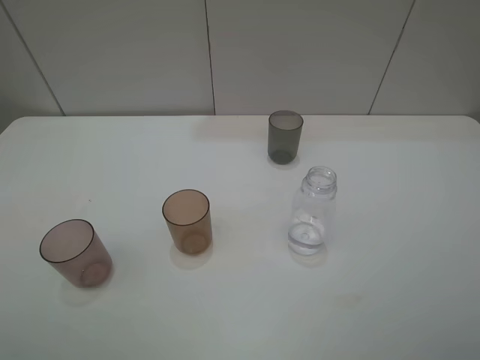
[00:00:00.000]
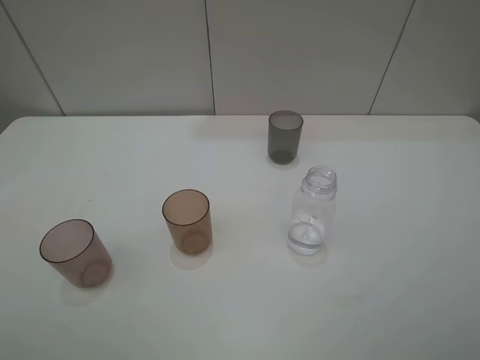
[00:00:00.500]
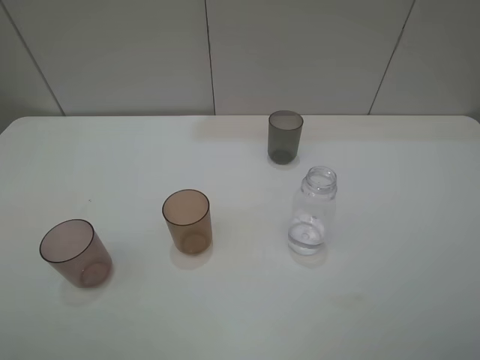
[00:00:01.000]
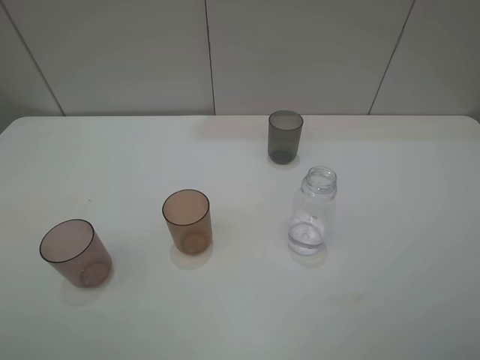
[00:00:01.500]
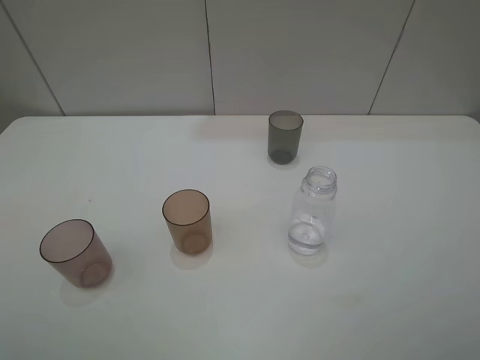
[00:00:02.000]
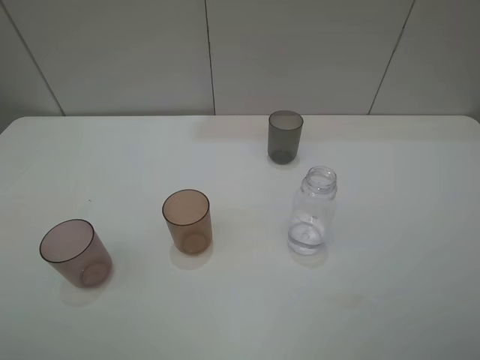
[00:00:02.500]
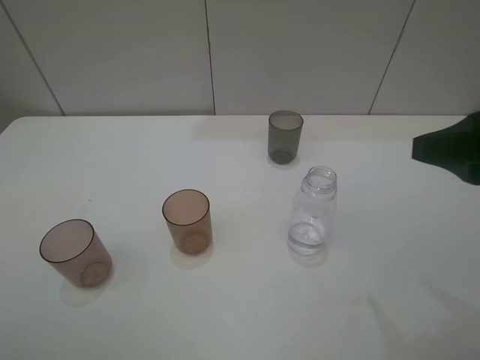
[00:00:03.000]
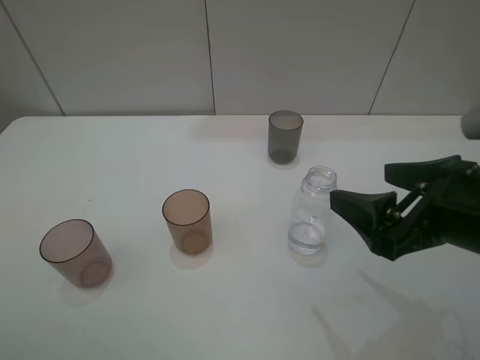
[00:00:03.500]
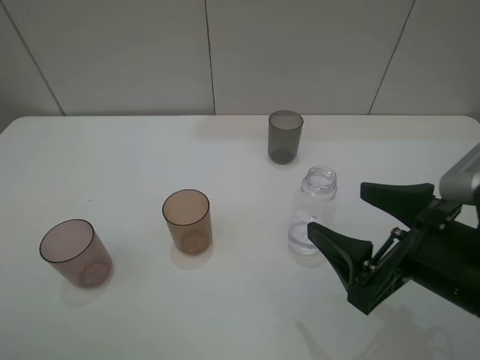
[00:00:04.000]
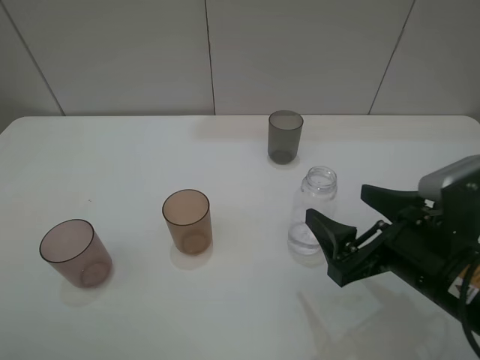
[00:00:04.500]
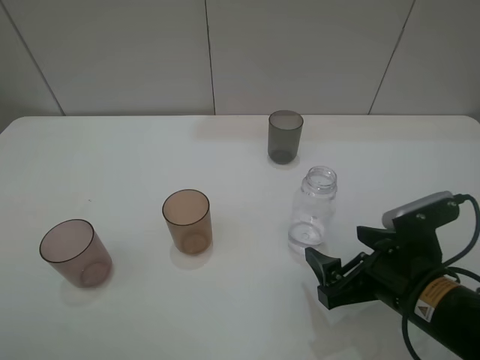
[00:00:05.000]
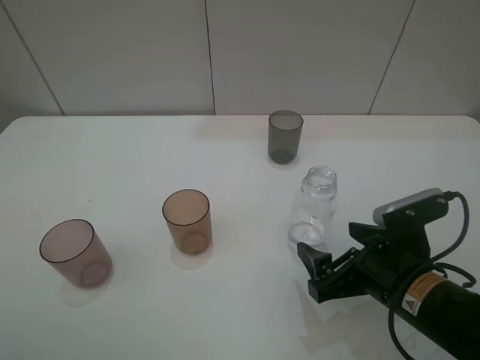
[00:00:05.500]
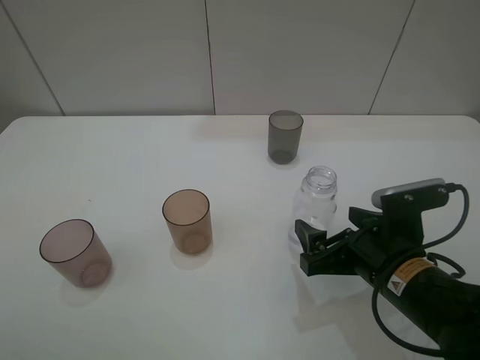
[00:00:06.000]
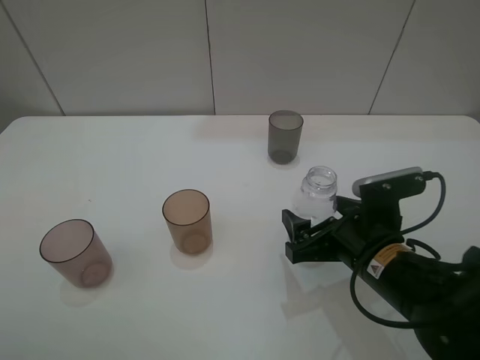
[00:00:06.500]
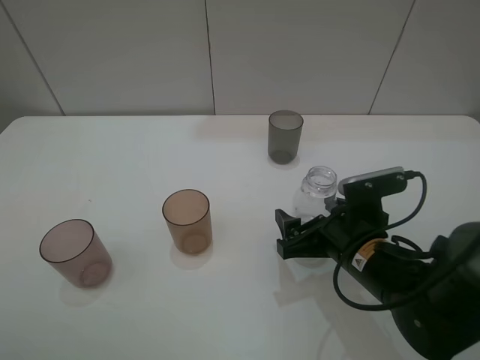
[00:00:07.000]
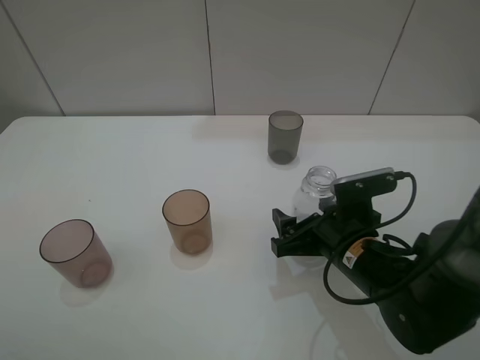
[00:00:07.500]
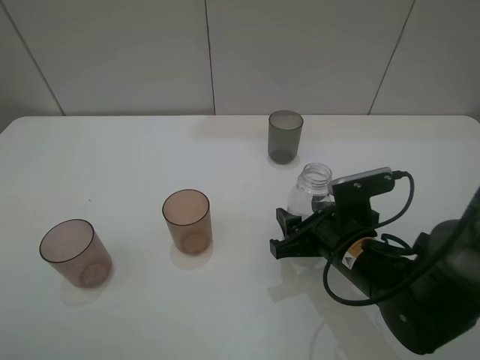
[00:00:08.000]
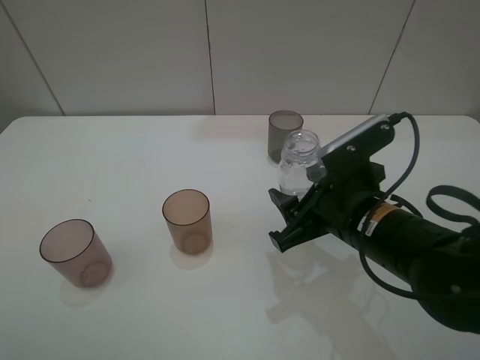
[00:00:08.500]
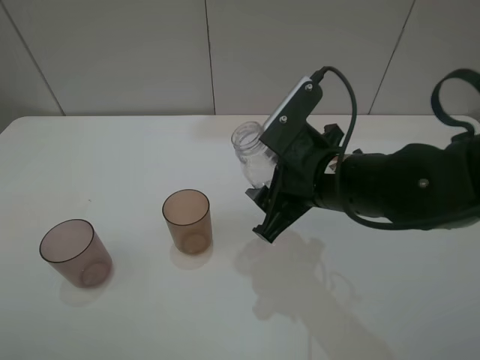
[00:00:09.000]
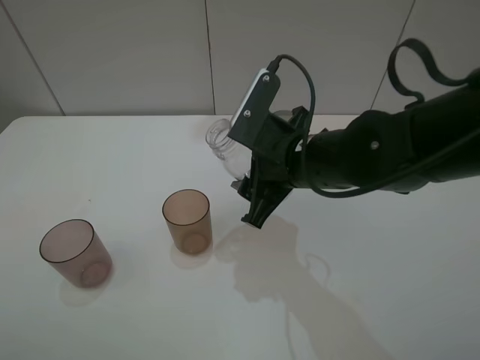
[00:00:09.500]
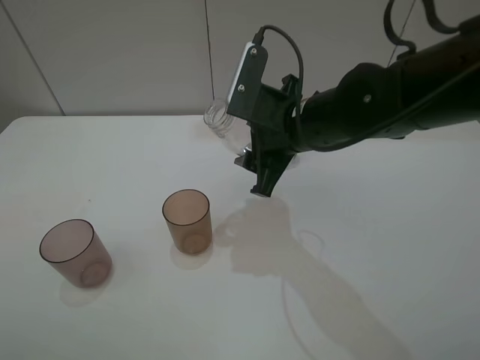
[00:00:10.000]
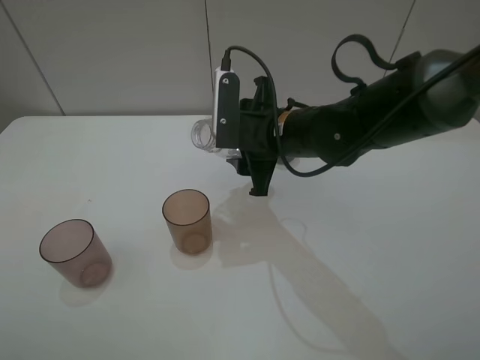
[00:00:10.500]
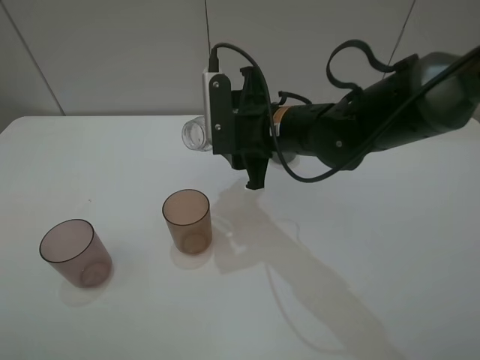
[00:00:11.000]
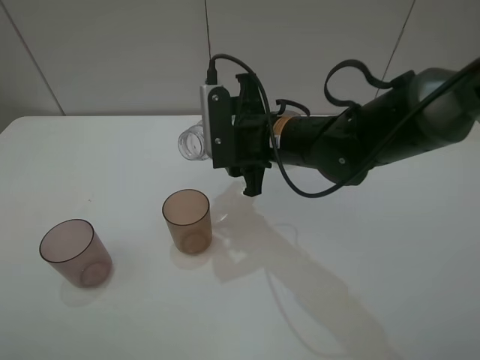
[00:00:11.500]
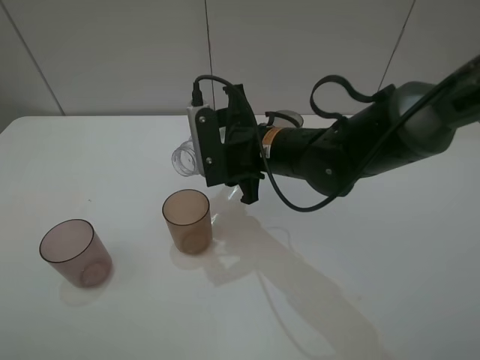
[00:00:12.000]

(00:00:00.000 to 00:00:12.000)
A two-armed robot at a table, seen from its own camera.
Task of the whole recording: pick up the bottle filled with water and pour water into the middle cup of the three cups.
Step, 00:00:00.000 - 00:00:07.500: Grasp the transparent bottle with the right gripper.
00:00:00.000 - 00:00:02.000: Neither gripper changes place.
00:00:02.000 - 00:00:04.000: The right gripper shifts approximately 20 cm downward, forward and to the left.
00:00:04.000 - 00:00:06.000: The right gripper moves downward, roughly 5 cm.
00:00:06.000 - 00:00:08.000: The right gripper shifts by about 5 cm, and closes.
00:00:08.000 - 00:00:10.000: The right gripper is displaced upward, forward and to the left by approximately 15 cm.
00:00:10.000 - 00:00:12.000: The right gripper ends up roughly 5 cm from where it was.

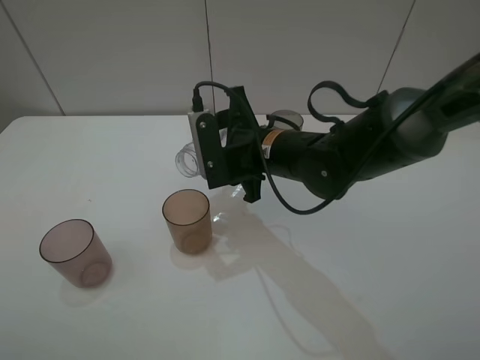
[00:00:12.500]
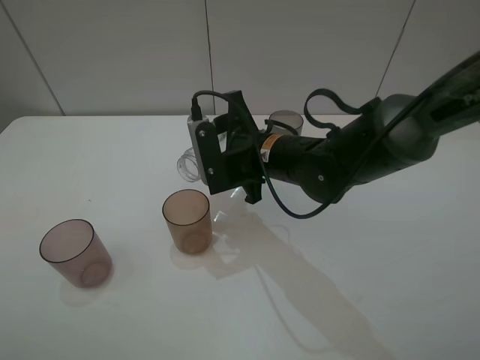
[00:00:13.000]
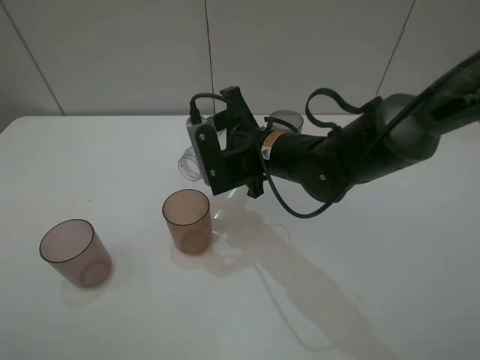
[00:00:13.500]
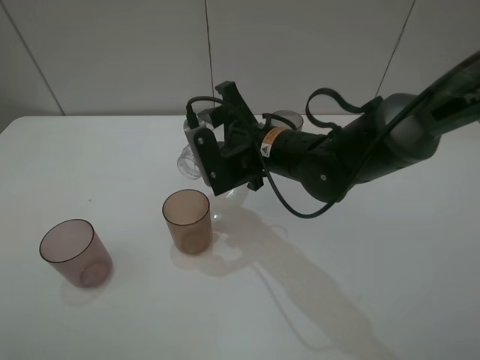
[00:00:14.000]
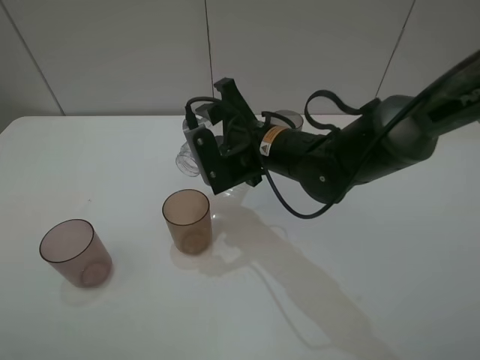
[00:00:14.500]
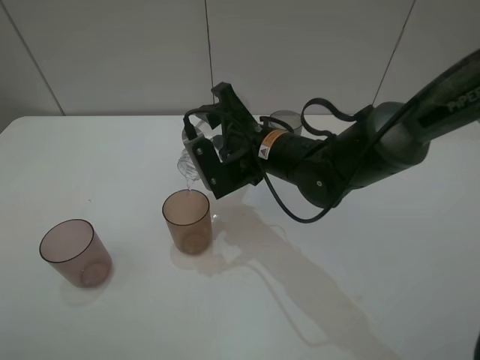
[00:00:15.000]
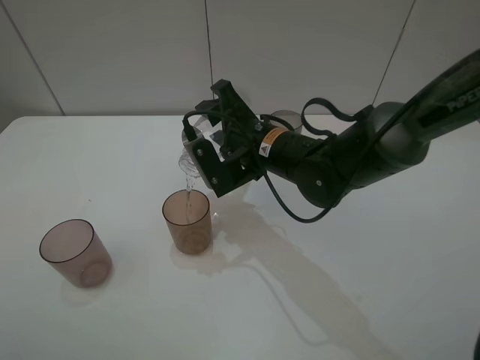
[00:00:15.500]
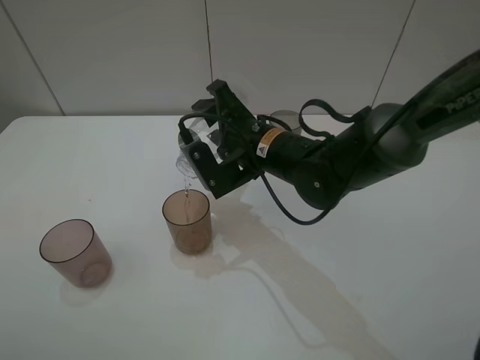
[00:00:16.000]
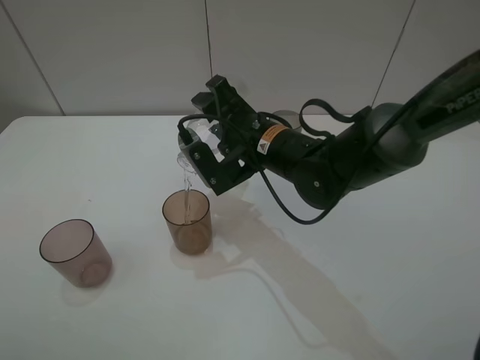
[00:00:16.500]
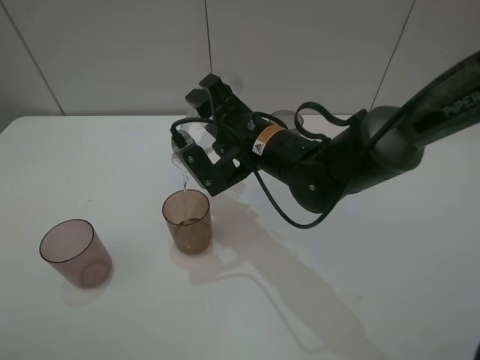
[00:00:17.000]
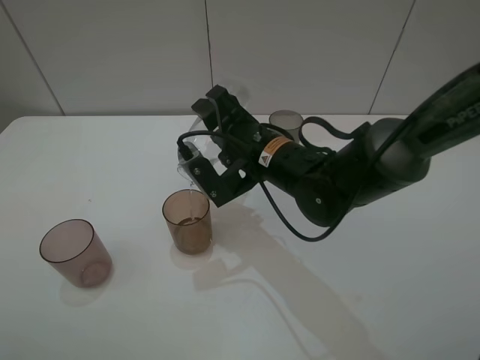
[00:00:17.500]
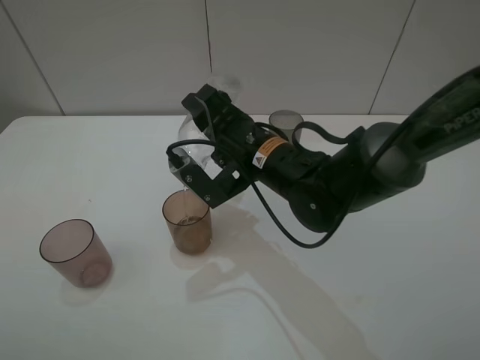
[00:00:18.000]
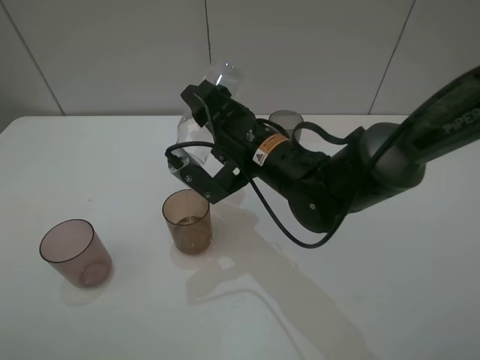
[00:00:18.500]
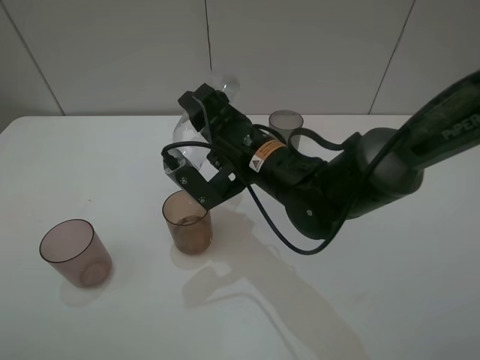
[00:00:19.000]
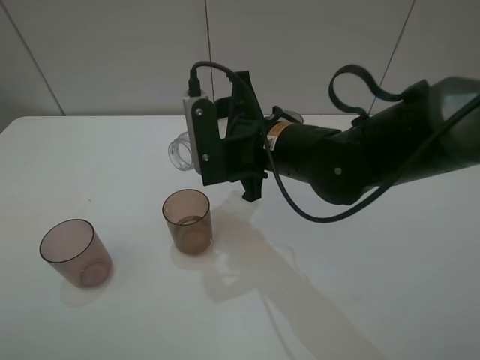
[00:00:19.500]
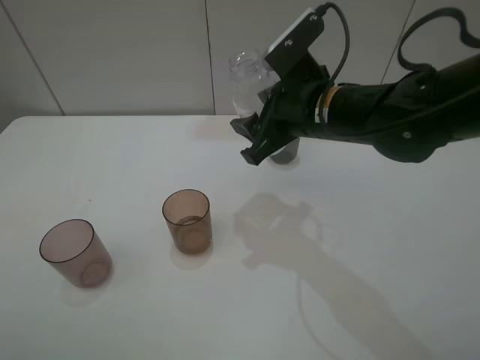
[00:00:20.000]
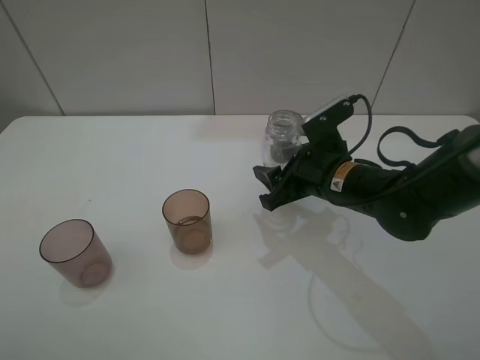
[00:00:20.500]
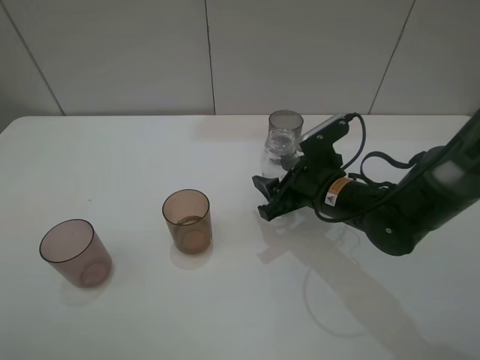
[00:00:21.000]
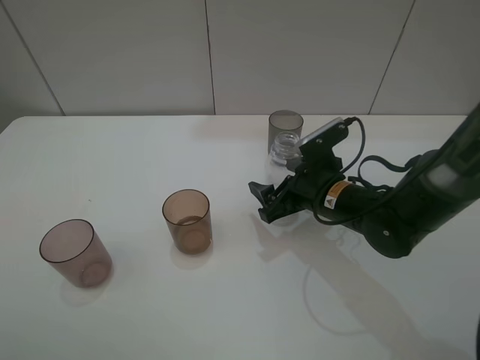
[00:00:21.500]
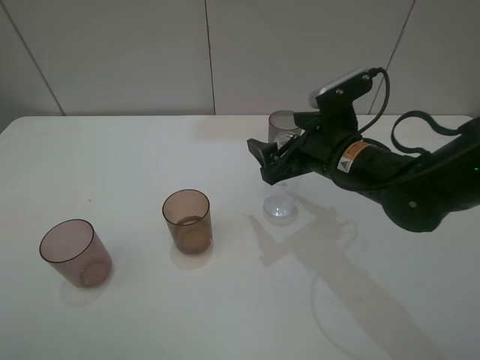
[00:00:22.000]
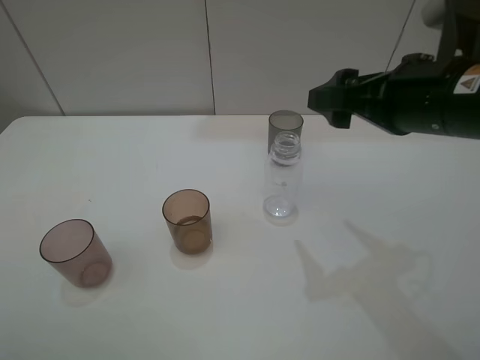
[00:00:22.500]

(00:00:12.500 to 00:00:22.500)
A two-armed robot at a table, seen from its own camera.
Task of the whole recording: pick up the bottle filled with water and pour water into the middle cup of the three cups.
00:00:12.500 - 00:00:14.500: The grippers move only a little.
00:00:14.500 - 00:00:16.500: The grippers move only a little.
00:00:16.500 - 00:00:18.500: The grippers move only a little.
00:00:18.500 - 00:00:20.500: The right gripper moves to the right, roughly 10 cm.
00:00:20.500 - 00:00:22.500: The right gripper heads upward, covering roughly 15 cm, and opens its fingers.

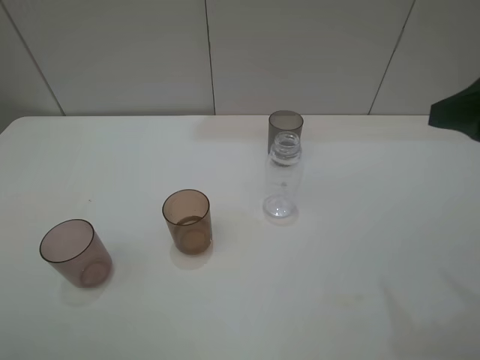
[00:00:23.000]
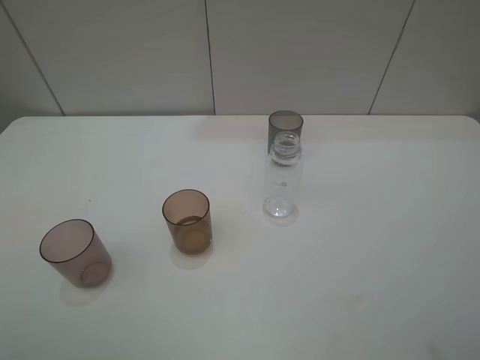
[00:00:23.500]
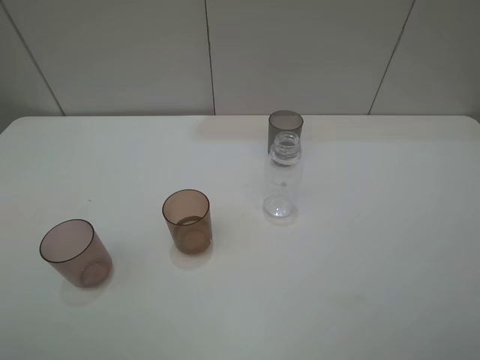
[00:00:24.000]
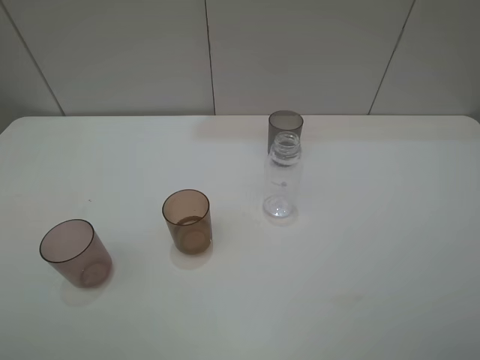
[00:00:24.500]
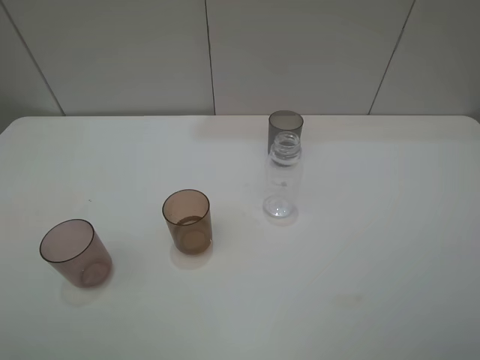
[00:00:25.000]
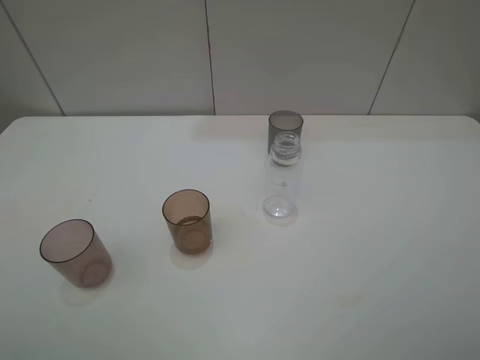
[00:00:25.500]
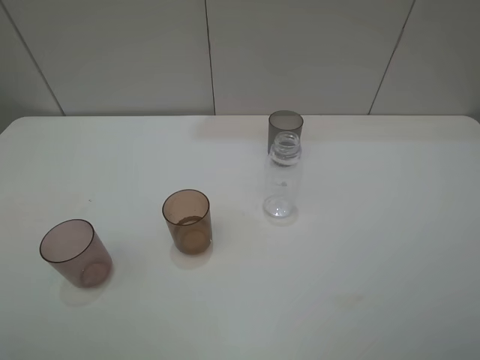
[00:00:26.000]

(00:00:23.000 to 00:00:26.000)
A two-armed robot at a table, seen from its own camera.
Task of the whole recording: pick up the bottle filled with water and pour water into the middle cup of the three cups.
00:00:23.000 - 00:00:24.500: The right gripper heads backward, covering some 15 cm.
